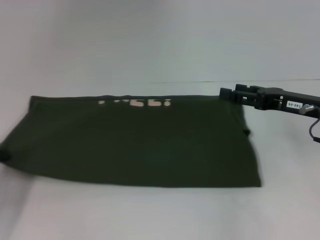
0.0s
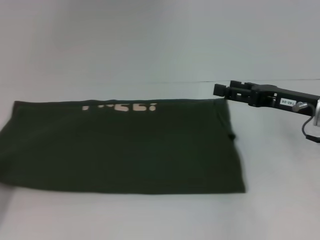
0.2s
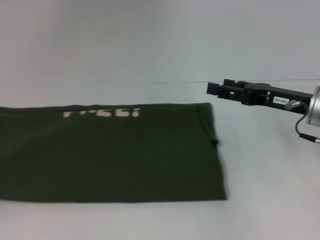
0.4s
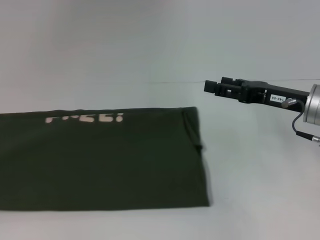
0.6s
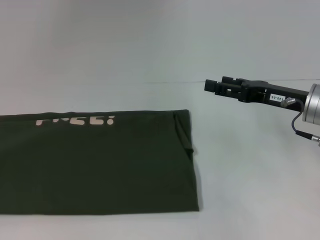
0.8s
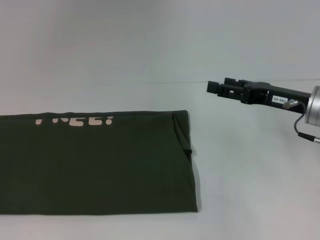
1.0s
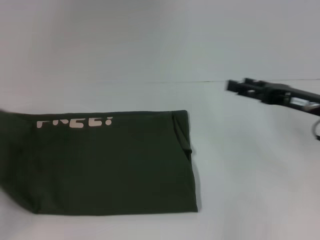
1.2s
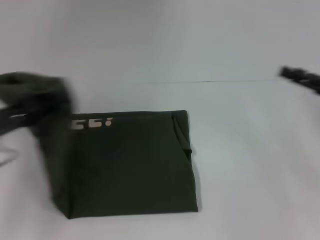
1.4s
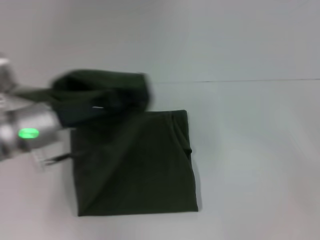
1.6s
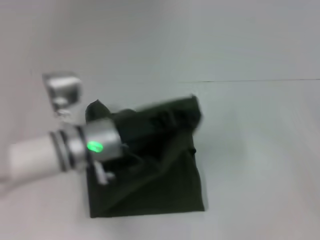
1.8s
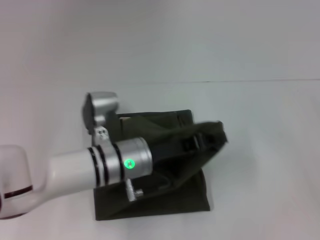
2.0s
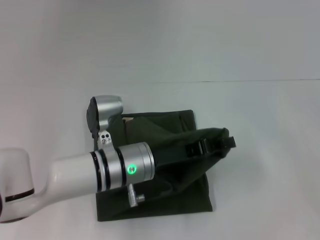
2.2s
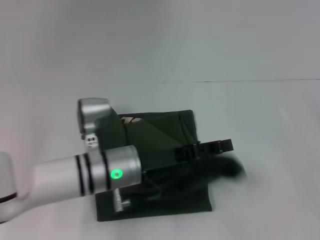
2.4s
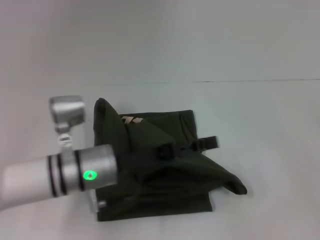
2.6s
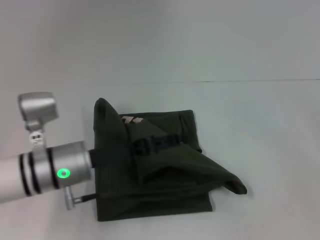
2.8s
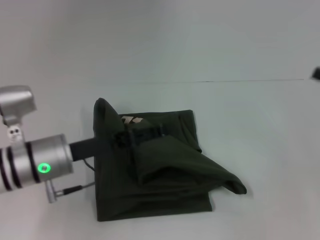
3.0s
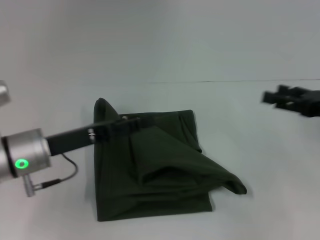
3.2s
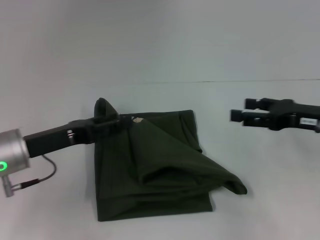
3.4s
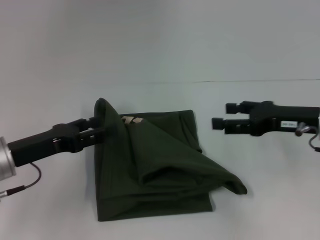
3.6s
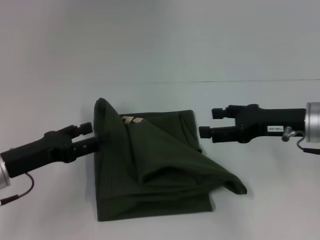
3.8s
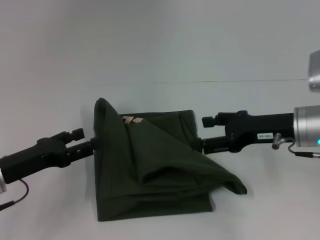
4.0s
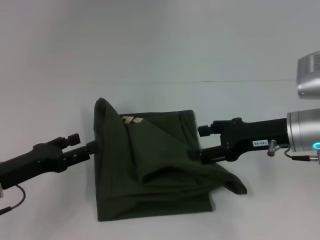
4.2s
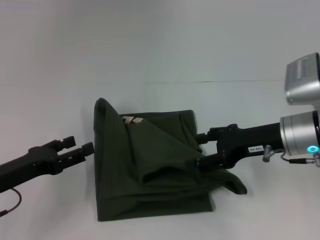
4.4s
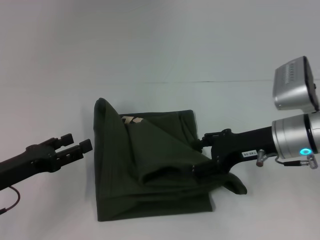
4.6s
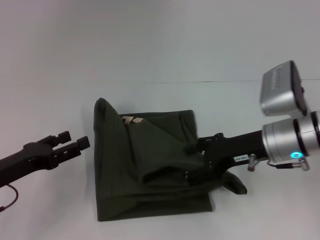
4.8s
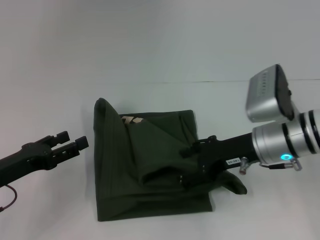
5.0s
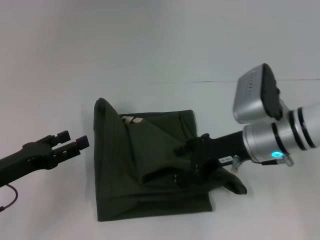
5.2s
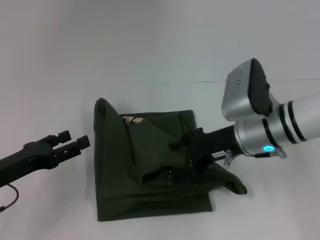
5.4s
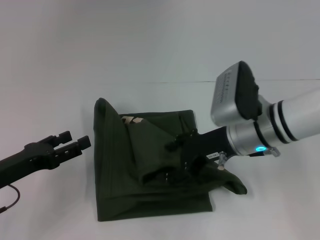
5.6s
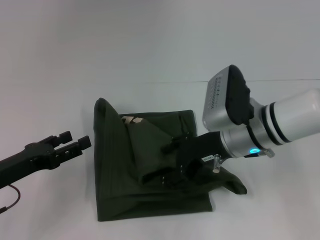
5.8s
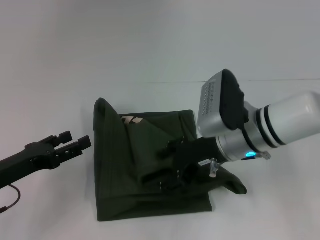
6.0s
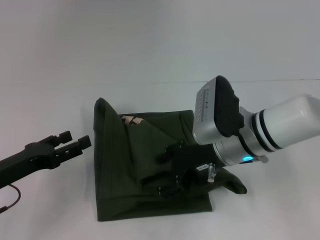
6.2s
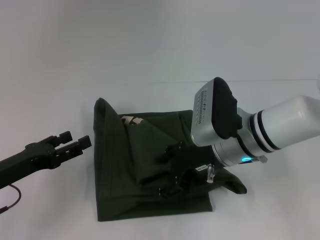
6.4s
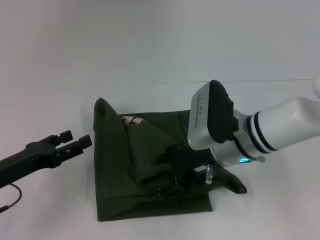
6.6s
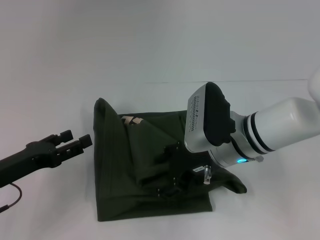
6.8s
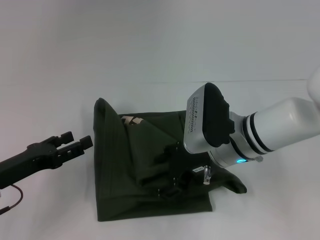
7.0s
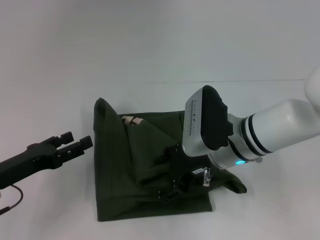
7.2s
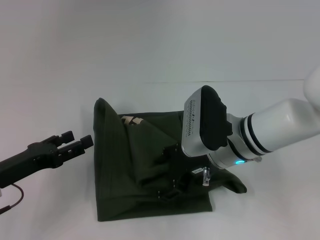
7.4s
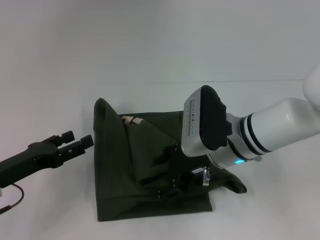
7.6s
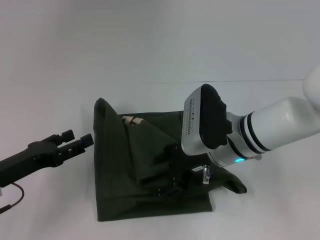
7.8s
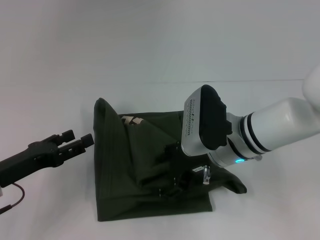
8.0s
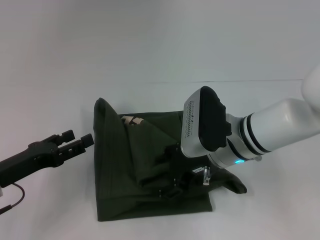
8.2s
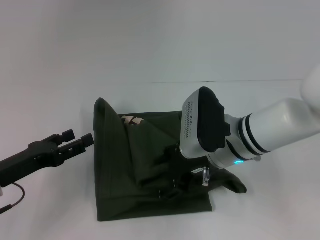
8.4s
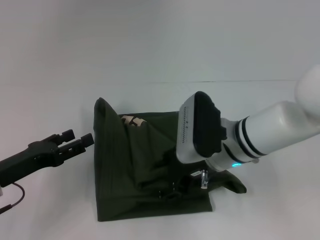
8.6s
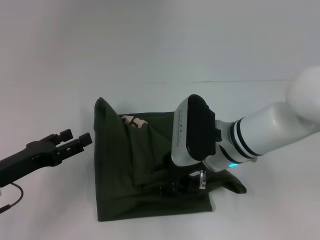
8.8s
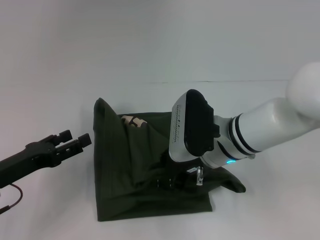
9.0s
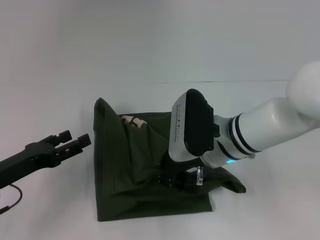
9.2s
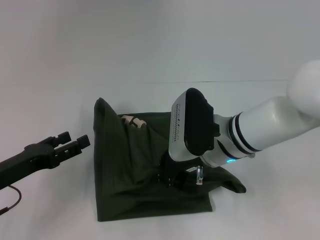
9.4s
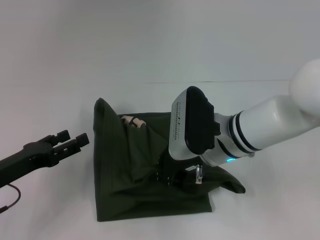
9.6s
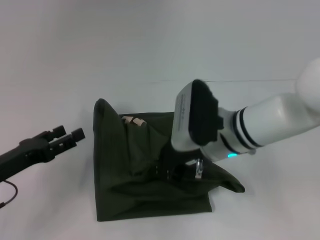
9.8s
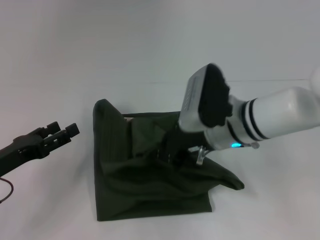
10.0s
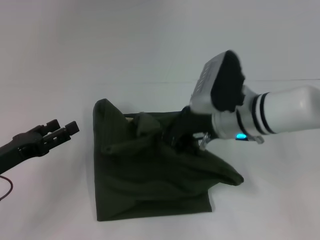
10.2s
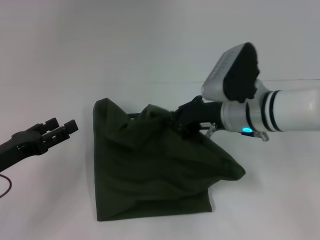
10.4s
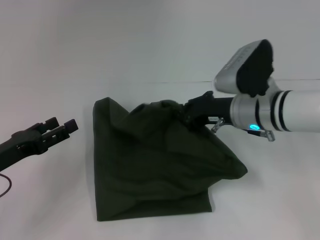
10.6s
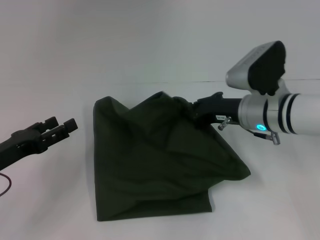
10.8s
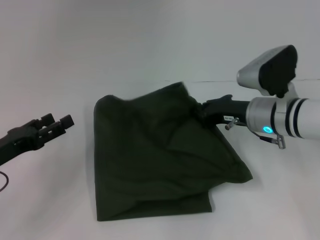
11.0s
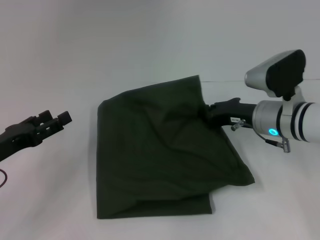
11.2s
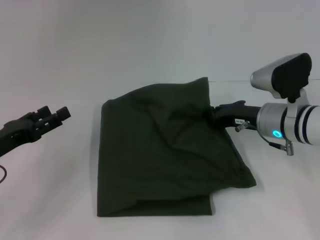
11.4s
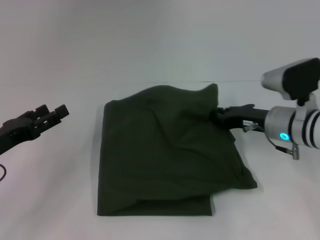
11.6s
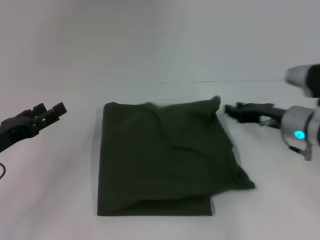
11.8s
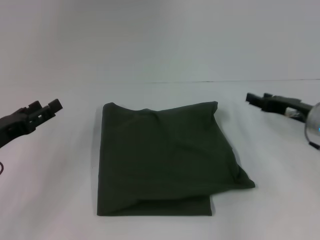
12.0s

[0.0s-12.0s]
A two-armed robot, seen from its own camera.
0.0s to 1.6s: The right gripper goes some 15 cm to the right and backward. The left gripper is displaced to the right by about 20 cm.
1.6s to 3.0s: The left gripper moves about 10 cm to the right and comes back, and opens its fingers.
3.0s to 4.4s: The right gripper is displaced to the left by some 15 cm. The left gripper heads to the left, covering about 10 cm.
4.4s to 6.0s: The right gripper heads to the left, covering roughly 10 cm.
6.0s to 9.0s: The grippers stay close to where they were, moving slightly.
9.0s to 10.4s: The right gripper ends up about 5 cm from where it was, and closes.
10.4s to 12.0s: The right gripper travels to the right by about 15 cm.

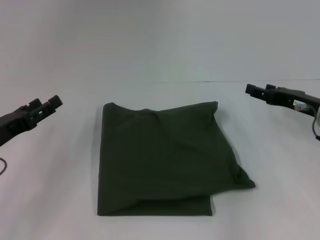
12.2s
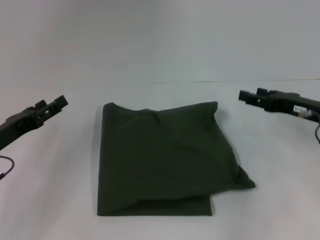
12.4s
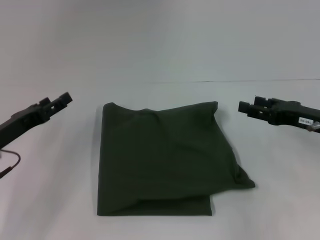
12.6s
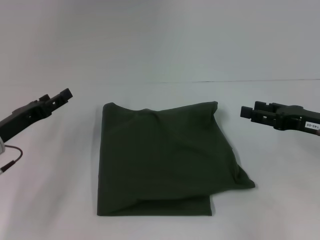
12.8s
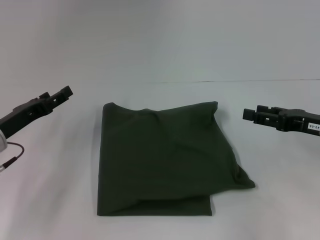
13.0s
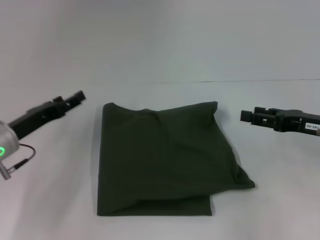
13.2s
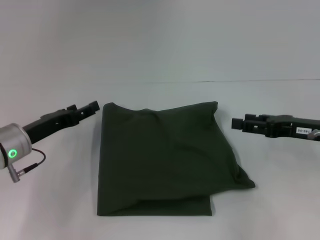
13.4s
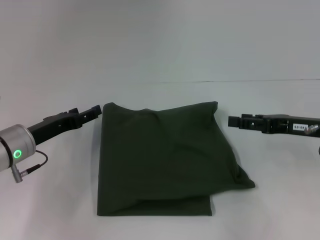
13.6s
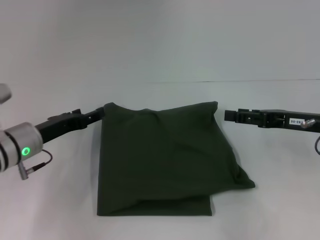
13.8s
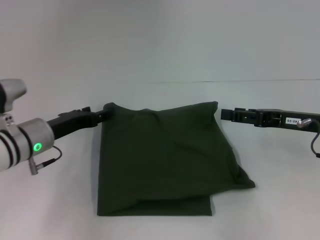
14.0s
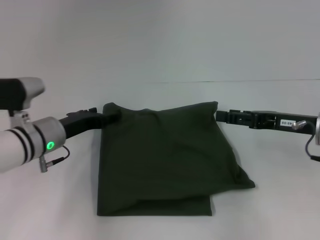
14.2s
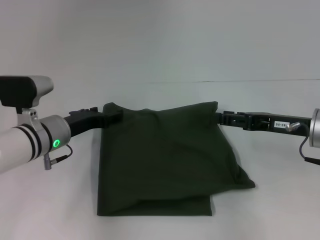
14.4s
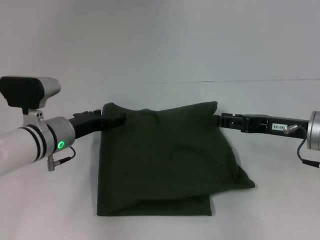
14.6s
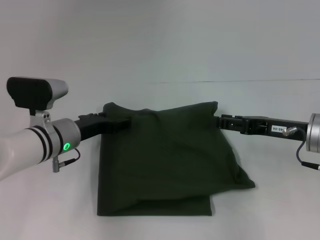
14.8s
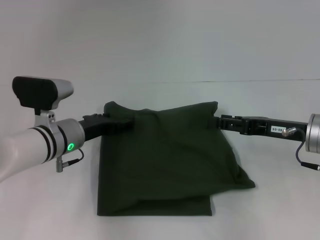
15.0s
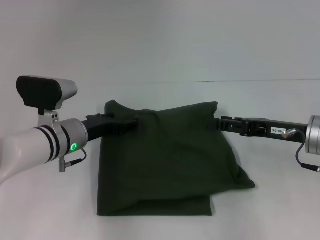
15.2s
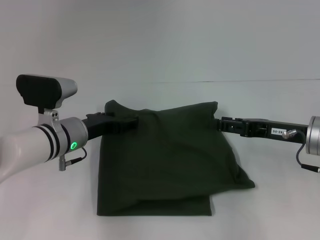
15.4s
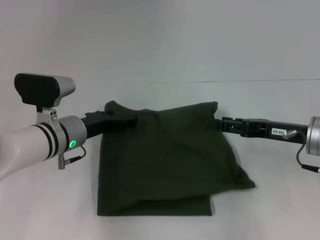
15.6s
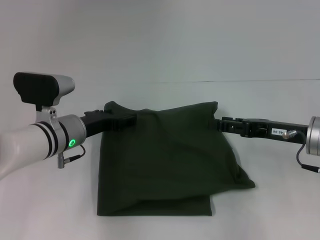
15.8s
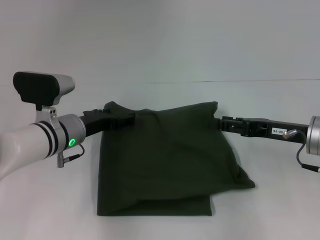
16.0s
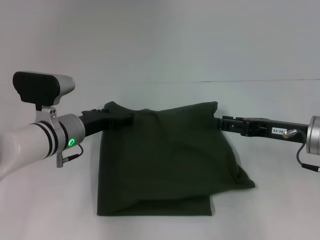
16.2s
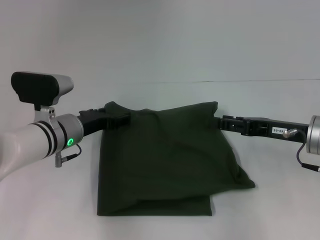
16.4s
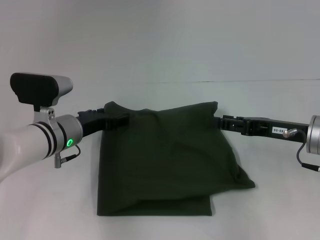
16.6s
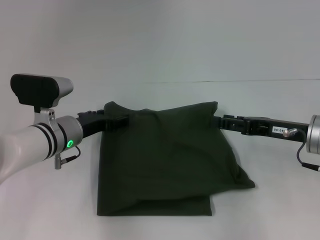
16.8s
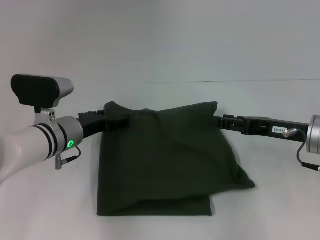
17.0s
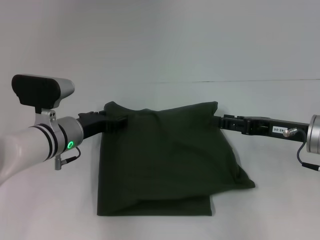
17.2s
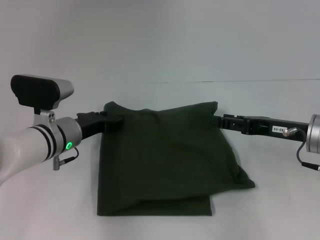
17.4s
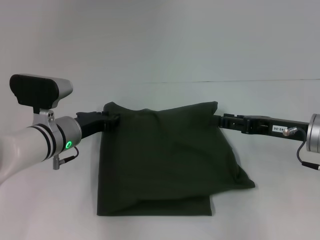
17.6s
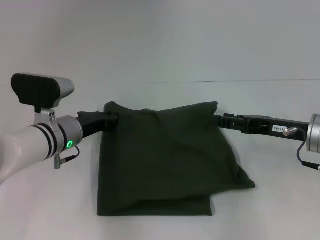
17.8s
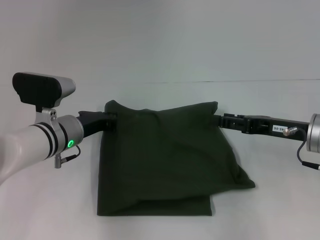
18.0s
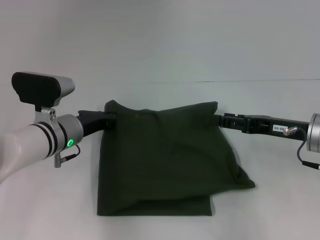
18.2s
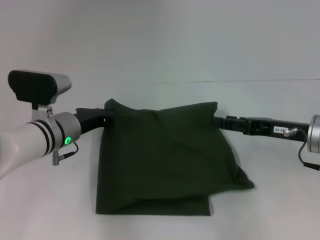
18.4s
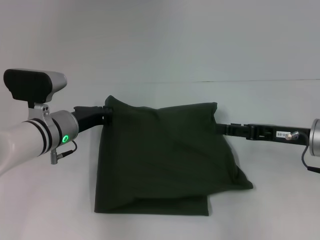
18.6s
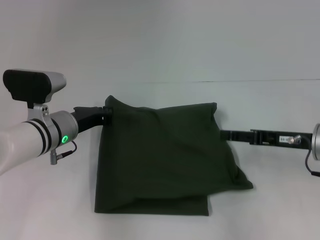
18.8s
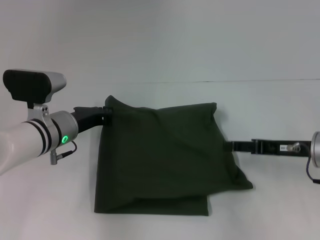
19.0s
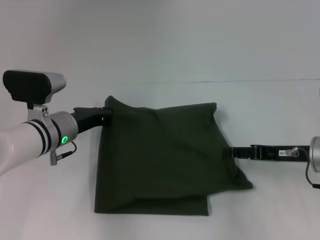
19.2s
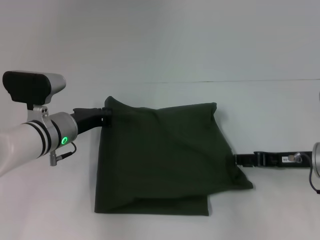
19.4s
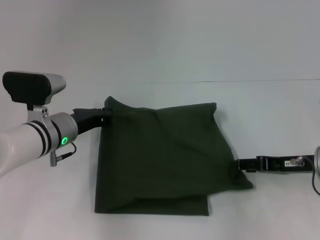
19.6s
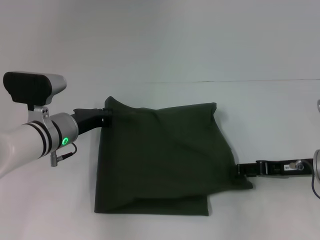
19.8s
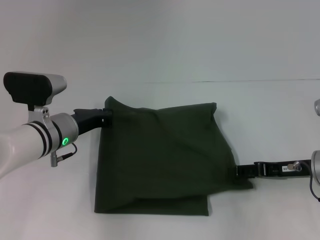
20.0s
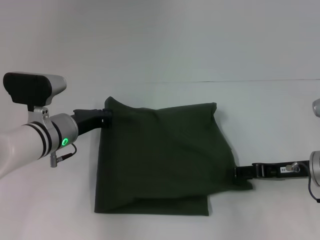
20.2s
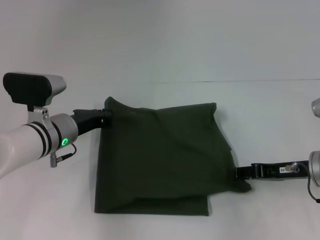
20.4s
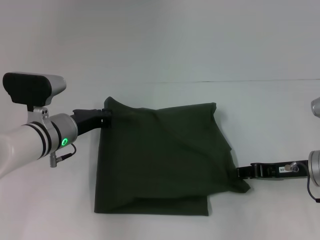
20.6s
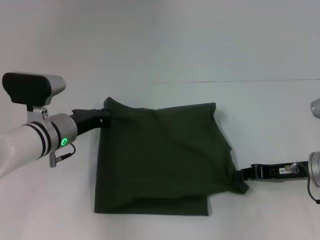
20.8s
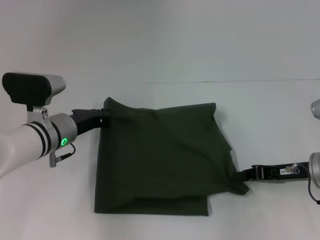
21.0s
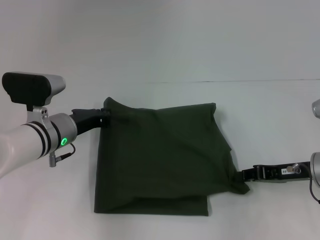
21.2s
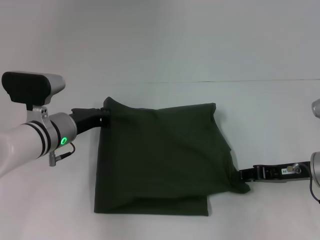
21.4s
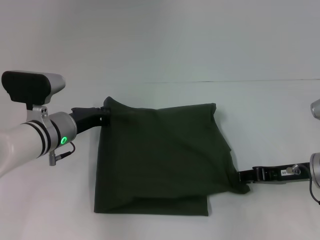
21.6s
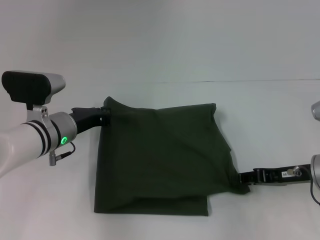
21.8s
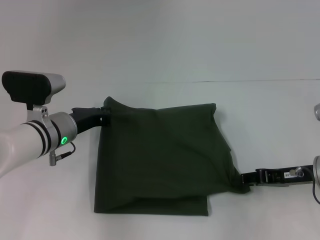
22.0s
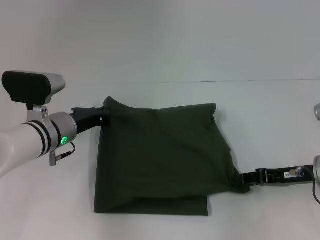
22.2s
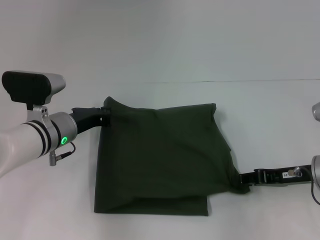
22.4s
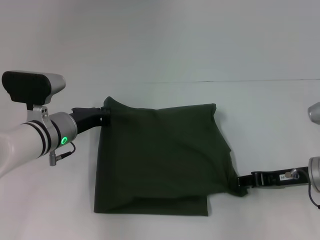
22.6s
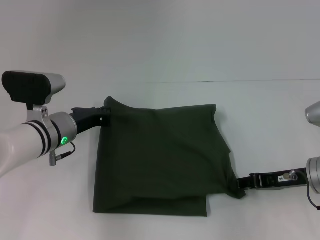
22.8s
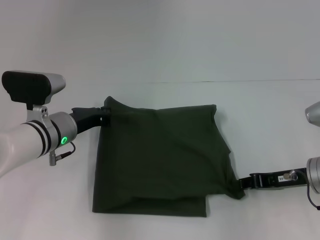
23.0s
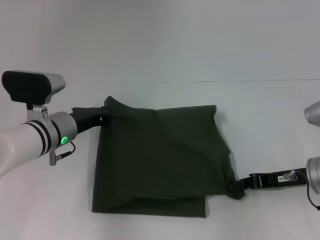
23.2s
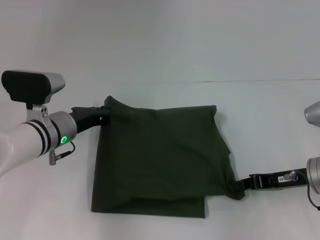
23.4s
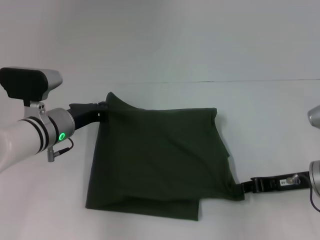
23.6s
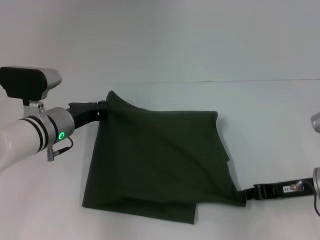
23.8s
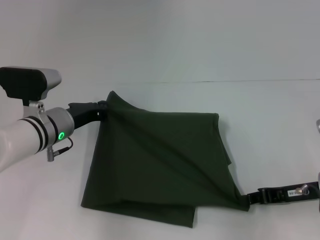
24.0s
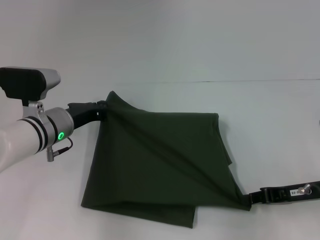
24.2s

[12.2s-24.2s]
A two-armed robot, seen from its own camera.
12.2s to 13.8s: The left gripper moves to the right and forward, about 10 cm.
13.8s to 15.2s: The left gripper moves to the right, roughly 5 cm.
15.2s to 16.6s: The two grippers keep their place.
16.6s to 18.2s: The left gripper closes.
19.8s to 21.2s: The right gripper closes its fingers.
21.2s to 22.6s: The two grippers keep their place.
22.6s to 24.2s: The grippers move only a little.
